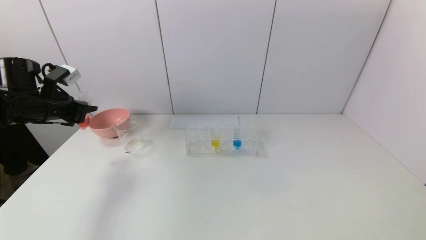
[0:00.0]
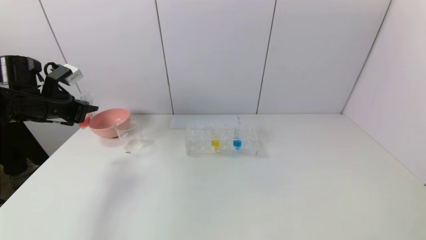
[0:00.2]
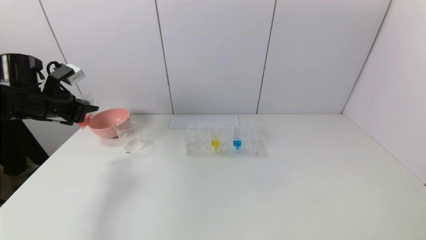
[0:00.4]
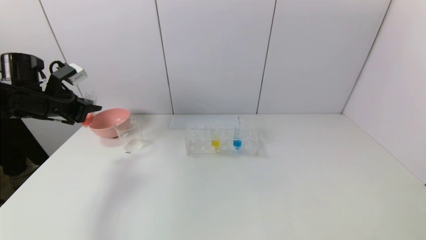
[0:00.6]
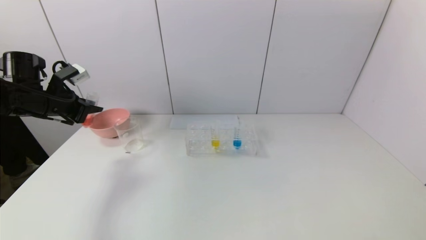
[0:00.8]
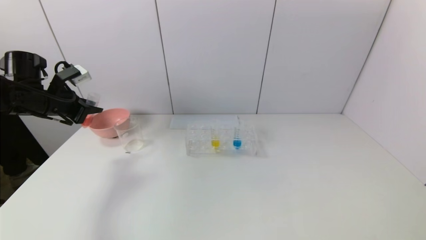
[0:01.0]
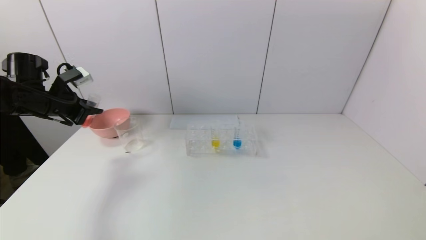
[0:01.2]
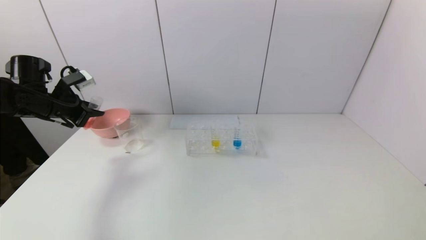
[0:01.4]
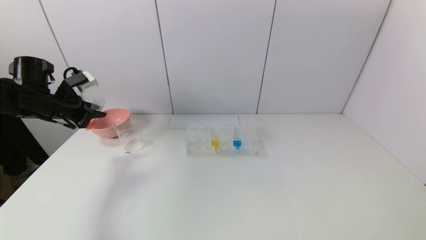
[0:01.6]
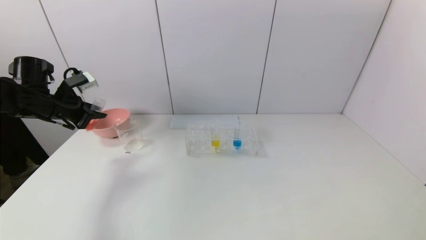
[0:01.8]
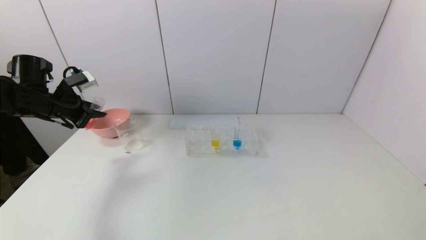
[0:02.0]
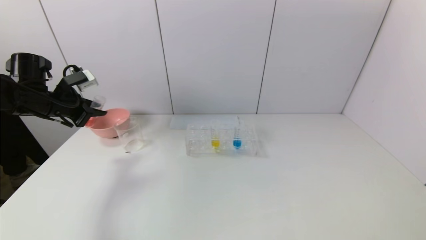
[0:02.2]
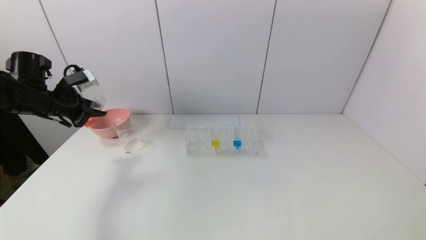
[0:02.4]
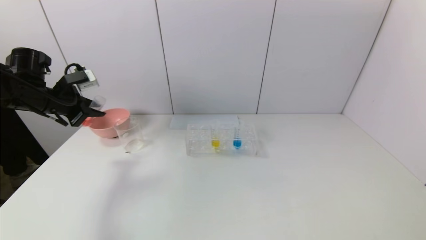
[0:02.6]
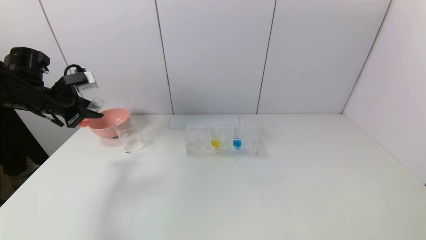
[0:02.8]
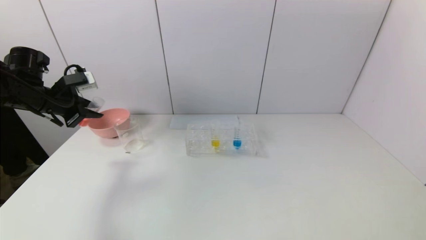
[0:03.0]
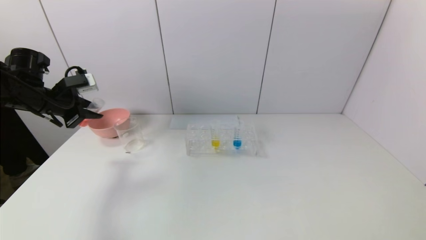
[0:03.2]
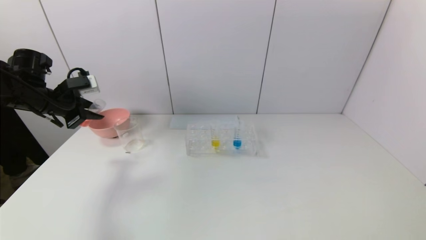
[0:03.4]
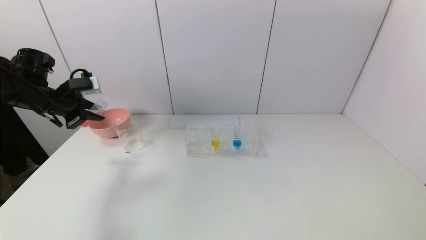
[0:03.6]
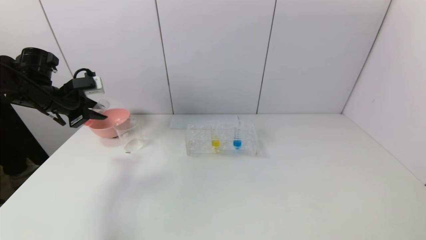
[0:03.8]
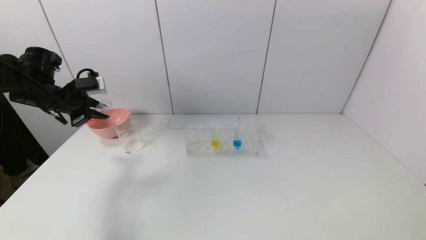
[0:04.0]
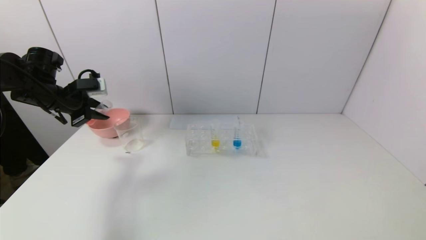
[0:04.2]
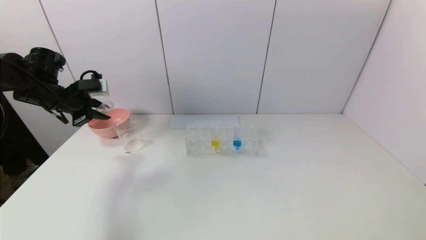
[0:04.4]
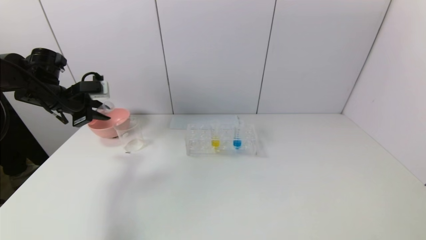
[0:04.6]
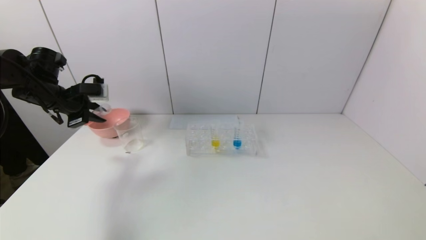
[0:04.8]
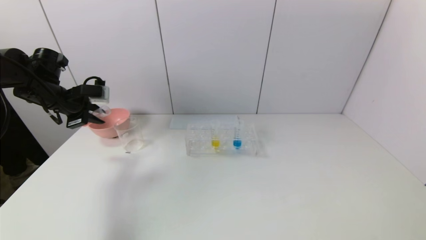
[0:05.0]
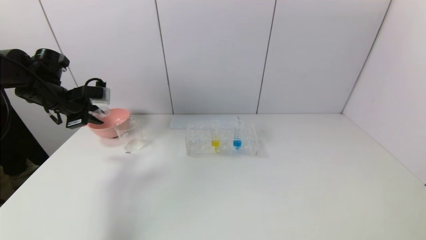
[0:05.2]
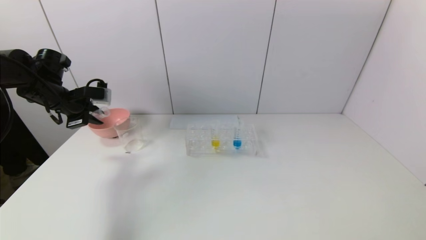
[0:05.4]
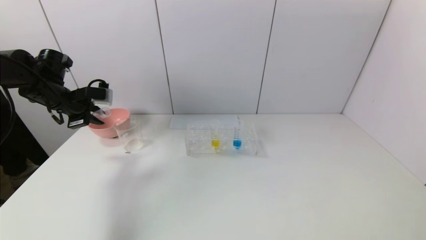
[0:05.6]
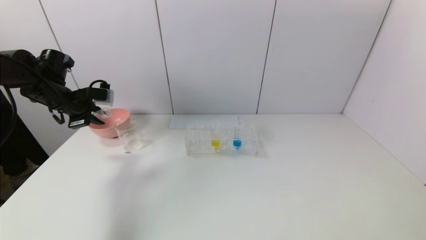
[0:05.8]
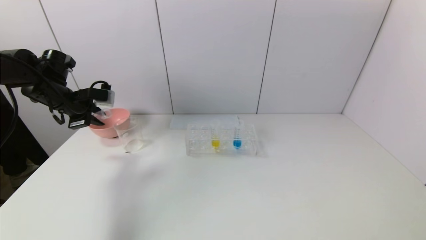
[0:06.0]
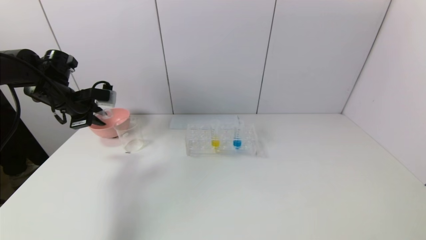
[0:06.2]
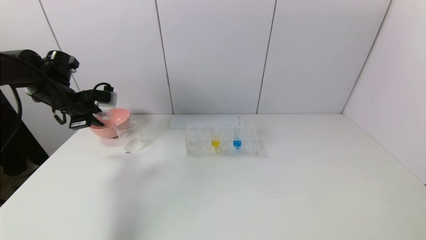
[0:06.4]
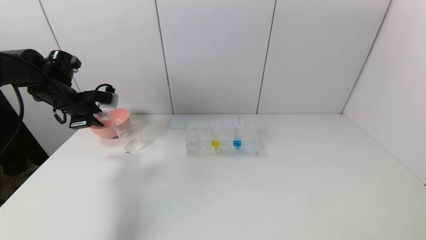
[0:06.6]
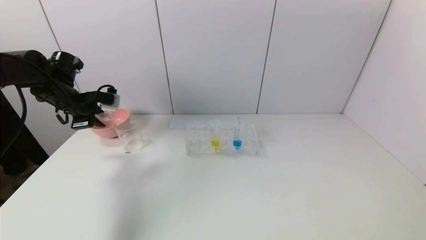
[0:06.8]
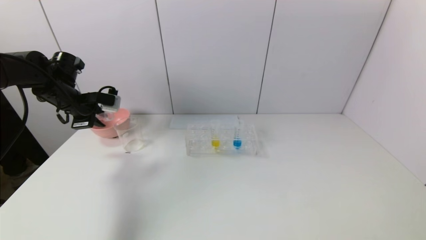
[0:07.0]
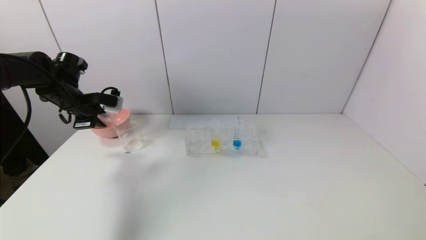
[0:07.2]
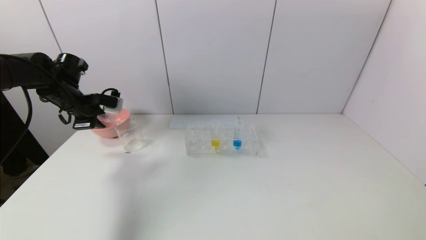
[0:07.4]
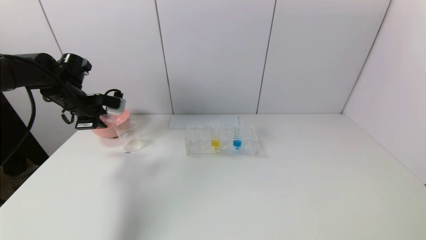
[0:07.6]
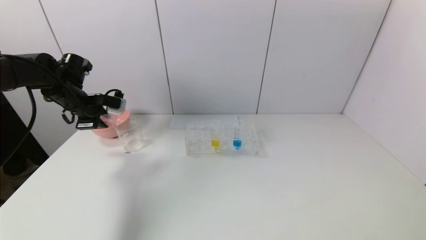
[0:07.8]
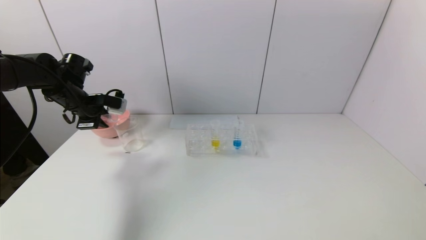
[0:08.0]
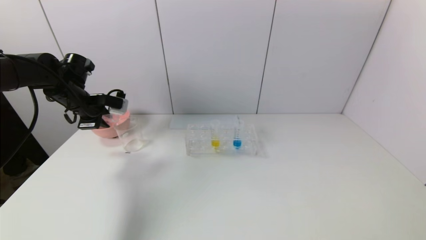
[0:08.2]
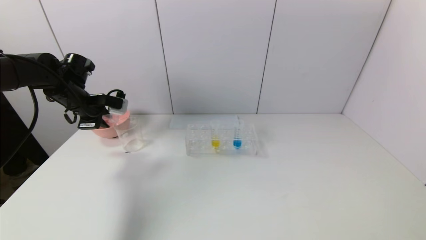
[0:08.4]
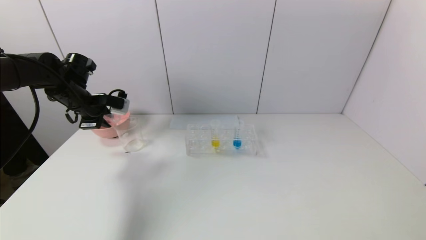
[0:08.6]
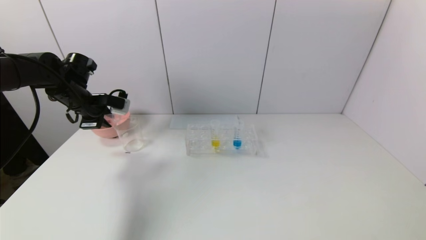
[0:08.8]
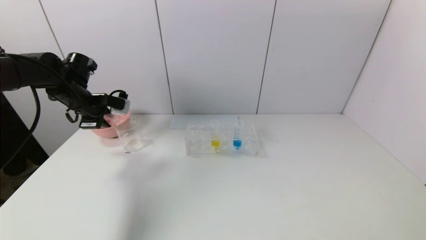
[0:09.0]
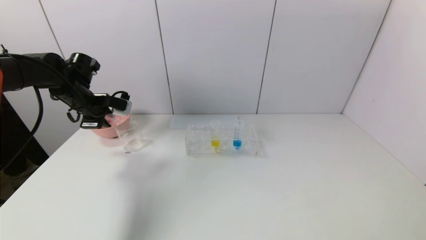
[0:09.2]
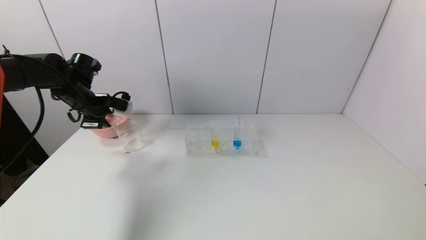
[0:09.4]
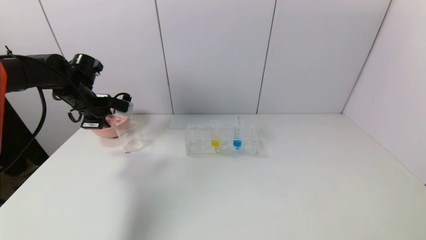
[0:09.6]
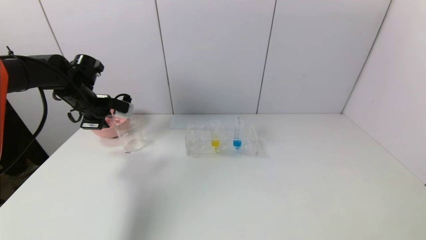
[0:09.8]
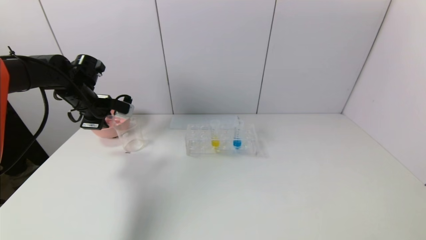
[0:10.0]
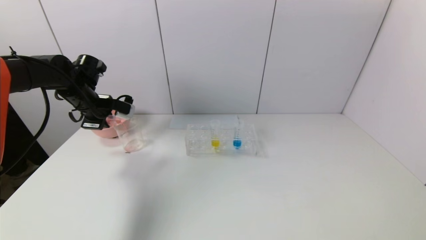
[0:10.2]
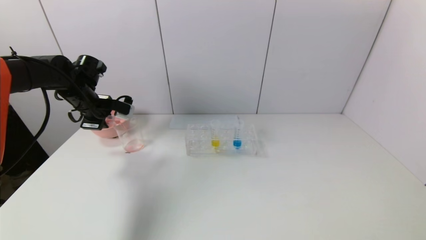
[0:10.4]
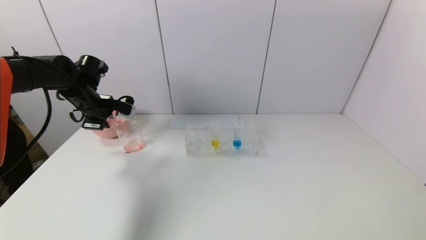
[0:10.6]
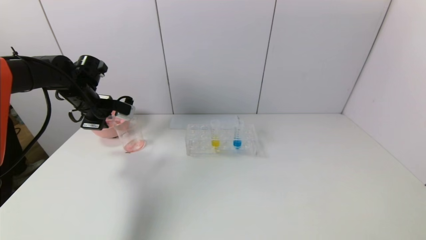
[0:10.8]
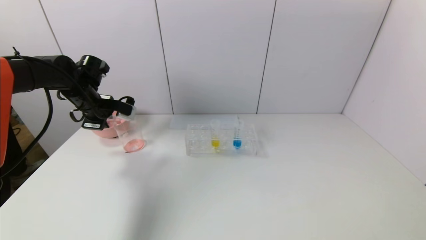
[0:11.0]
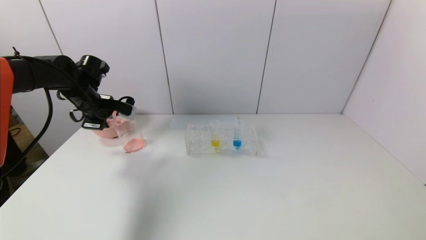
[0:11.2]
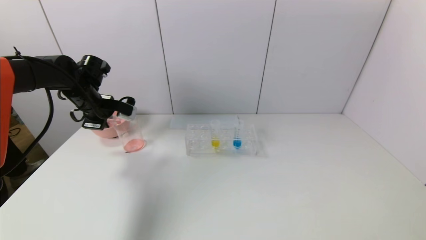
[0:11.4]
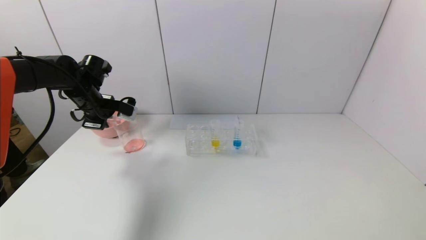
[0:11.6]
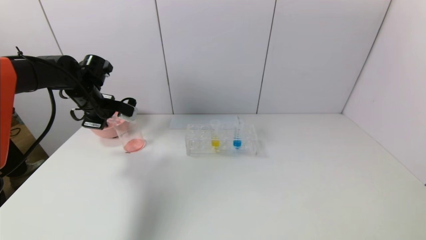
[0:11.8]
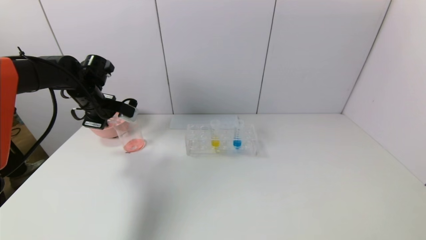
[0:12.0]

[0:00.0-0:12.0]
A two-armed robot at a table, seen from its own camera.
Task of the whole recording: pick up the test tube with yellow pigment and the test tube with red pigment by grippers and pour them into the beaker.
0:00.0 to 0:01.6: There are only small adjustments of the grippers.
0:01.6 to 0:03.0: There are only small adjustments of the grippers.
0:03.0 to 0:04.4: The grippers move only a little.
0:04.4 to 0:06.0: The grippers make only small movements.
0:06.0 to 0:07.6: The grippers stay close to where they were, moving slightly.
0:07.6 to 0:09.0: Neither gripper changes place.
0:09.0 to 0:12.0: The grippers stay close to where they were, moving slightly.

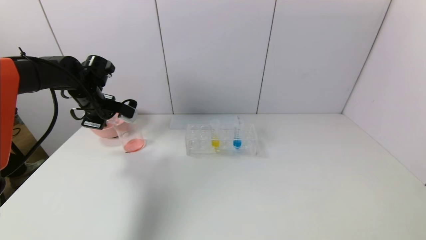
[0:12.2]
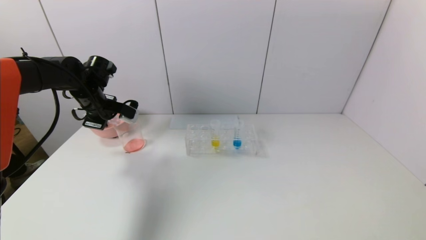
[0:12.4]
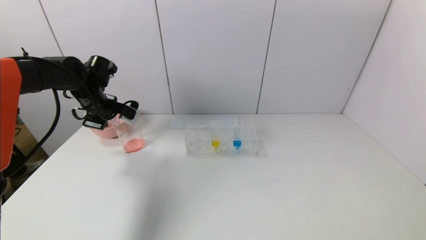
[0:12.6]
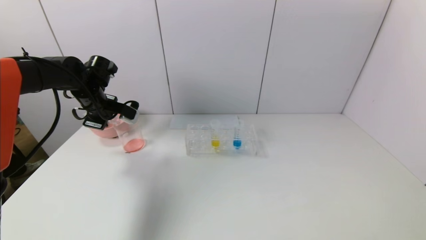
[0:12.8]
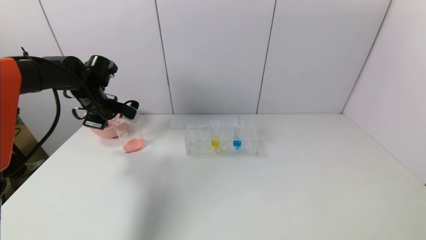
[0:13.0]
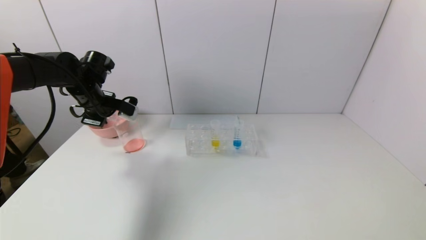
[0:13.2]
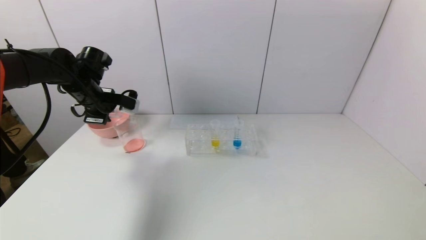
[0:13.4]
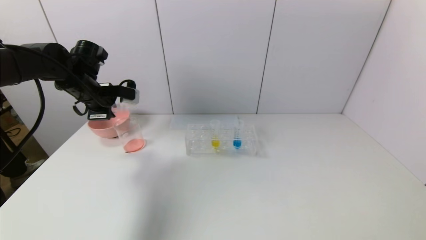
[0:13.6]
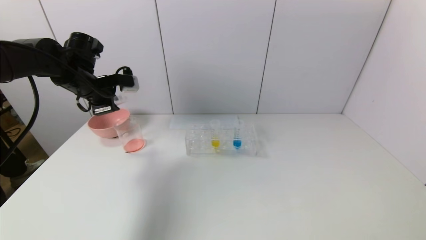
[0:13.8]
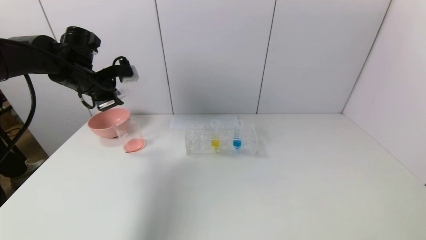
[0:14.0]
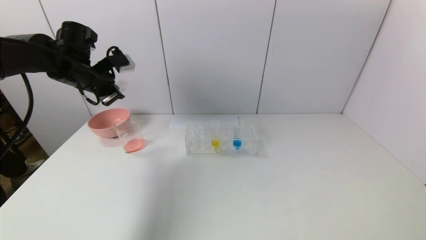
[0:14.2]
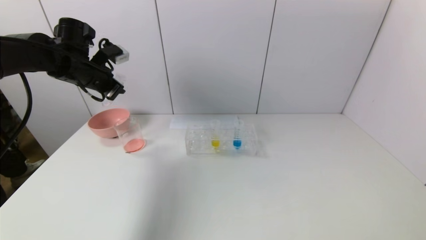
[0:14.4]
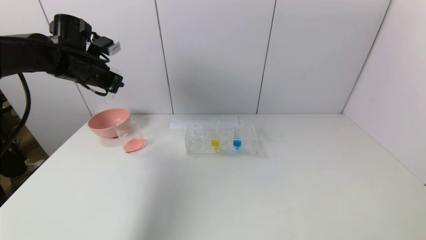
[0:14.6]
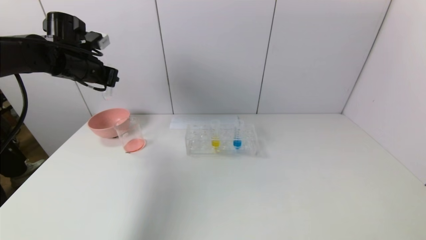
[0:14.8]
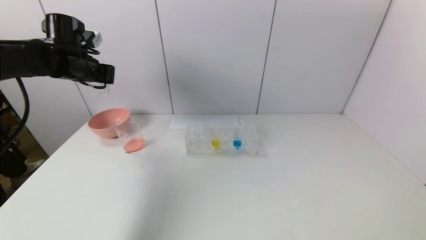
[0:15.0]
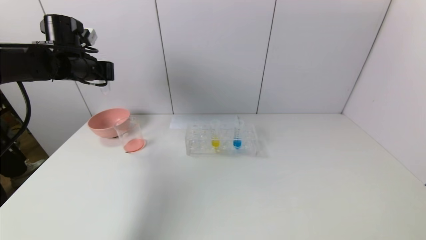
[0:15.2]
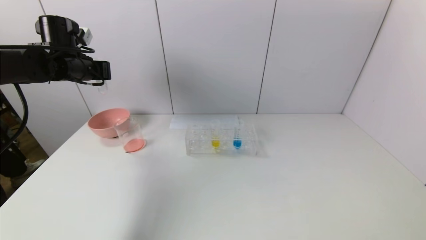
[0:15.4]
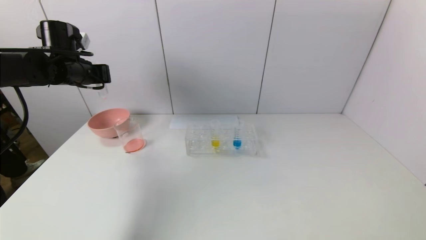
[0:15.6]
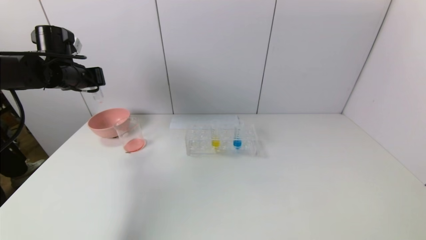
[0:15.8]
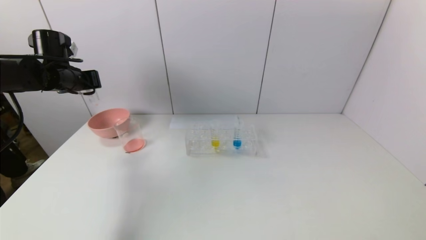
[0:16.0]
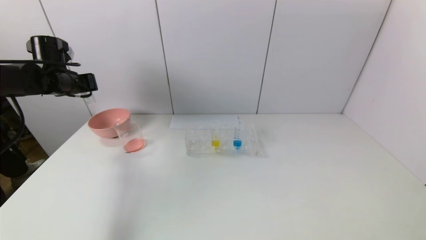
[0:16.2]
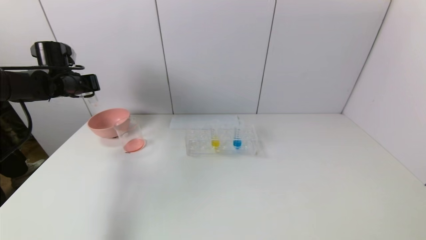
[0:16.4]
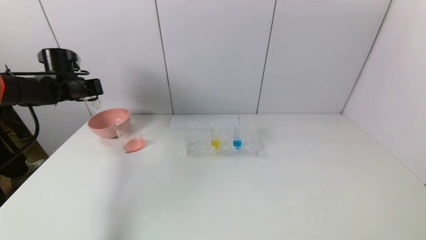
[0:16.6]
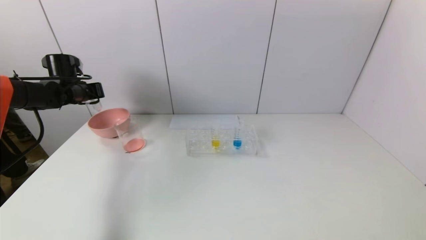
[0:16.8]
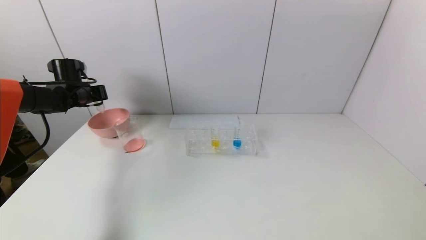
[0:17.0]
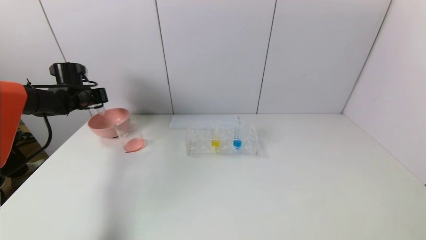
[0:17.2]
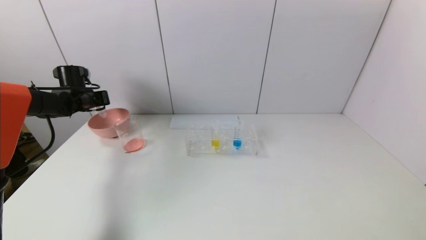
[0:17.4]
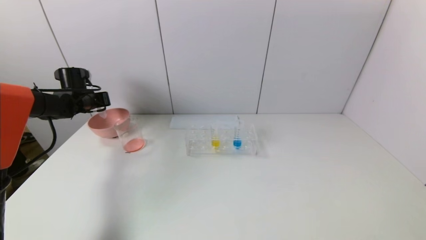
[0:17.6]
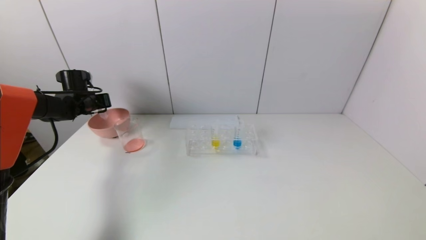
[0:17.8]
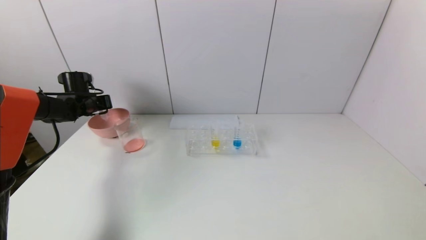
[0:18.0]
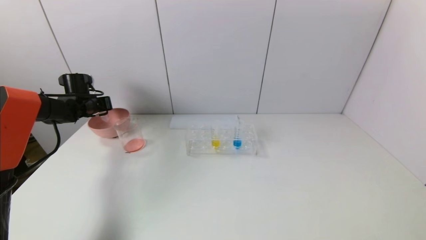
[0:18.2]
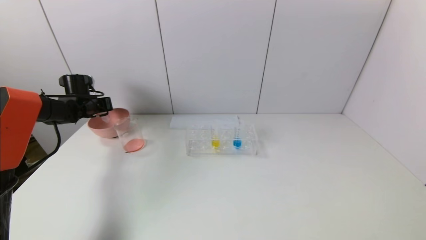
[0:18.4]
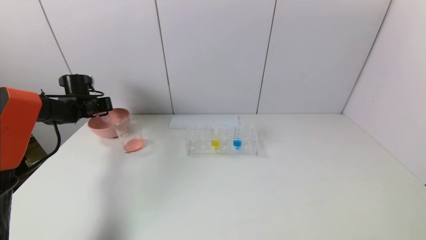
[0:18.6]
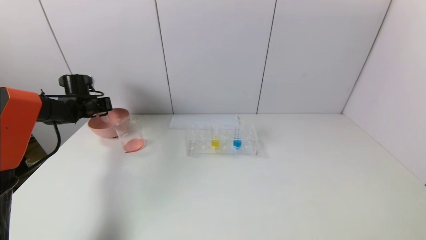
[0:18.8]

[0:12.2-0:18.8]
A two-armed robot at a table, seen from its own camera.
Task of the whole recording: pick up the test tube with yellow pigment and the test tube with red pigment by grippers and pour them into the beaker.
0:12.2 to 0:13.8: The left gripper changes place by some 5 cm.
0:15.4 to 0:17.2: The left gripper heads downward, to the left and forward, covering approximately 15 cm.
0:17.2 to 0:18.8: The grippers move only a little.
